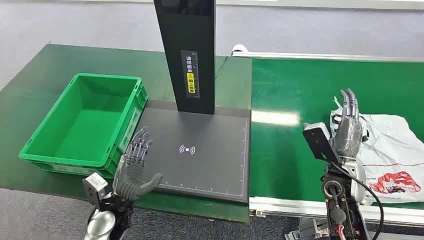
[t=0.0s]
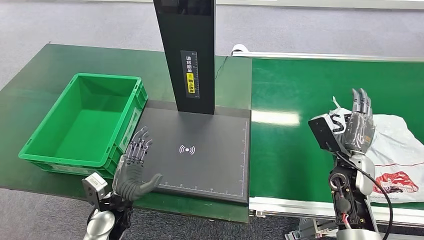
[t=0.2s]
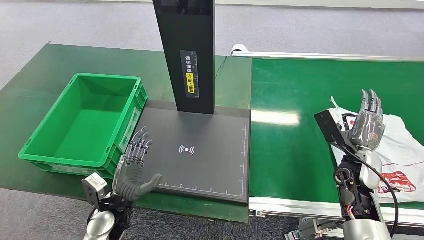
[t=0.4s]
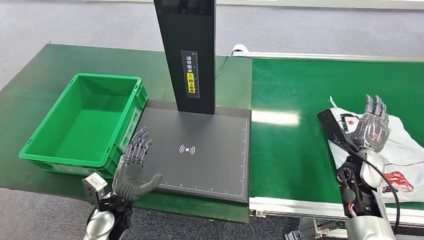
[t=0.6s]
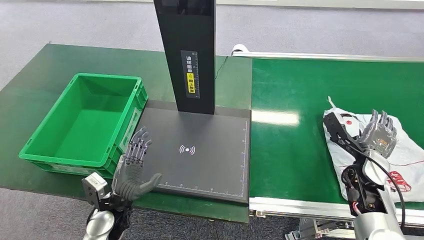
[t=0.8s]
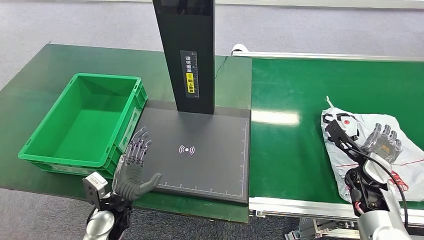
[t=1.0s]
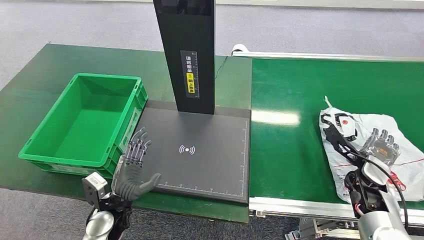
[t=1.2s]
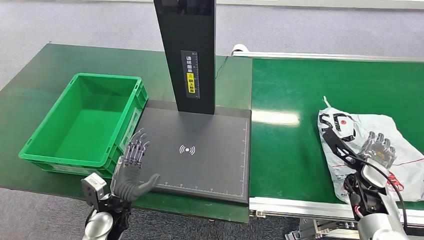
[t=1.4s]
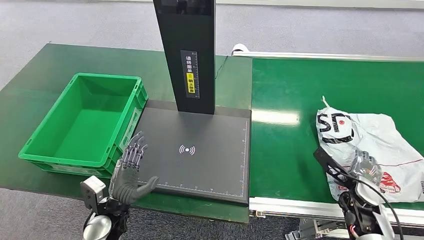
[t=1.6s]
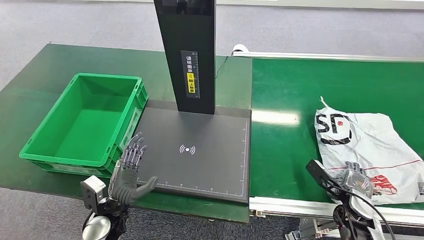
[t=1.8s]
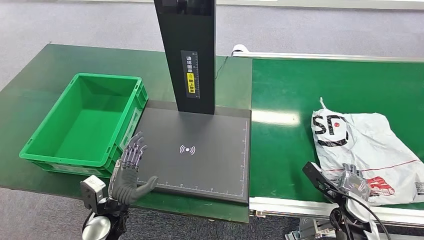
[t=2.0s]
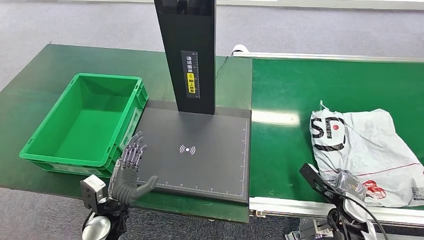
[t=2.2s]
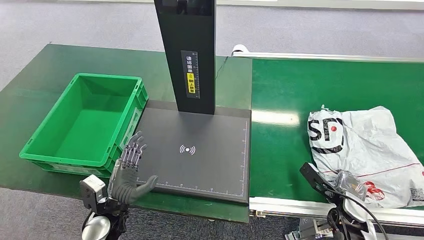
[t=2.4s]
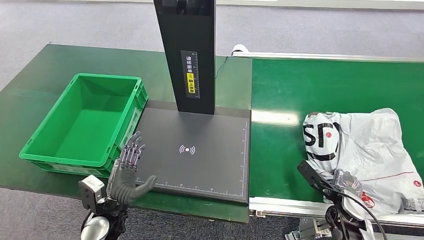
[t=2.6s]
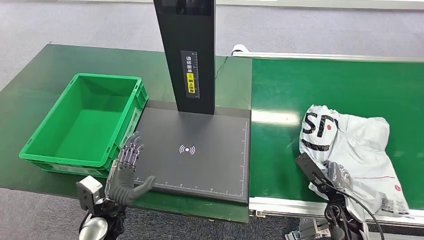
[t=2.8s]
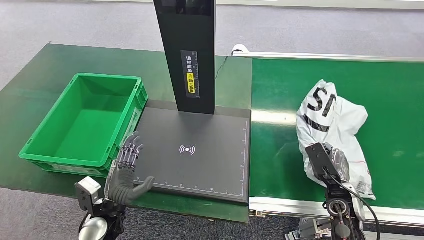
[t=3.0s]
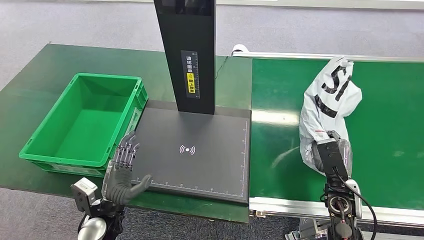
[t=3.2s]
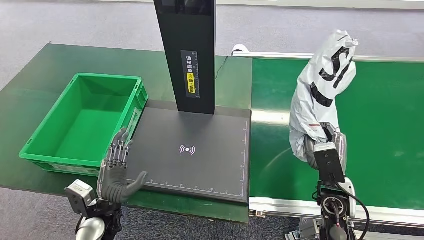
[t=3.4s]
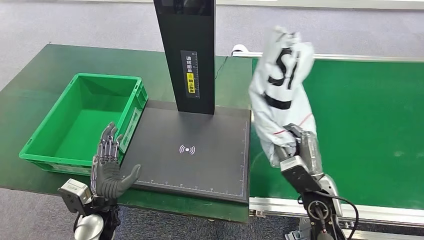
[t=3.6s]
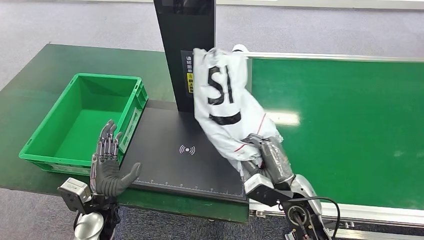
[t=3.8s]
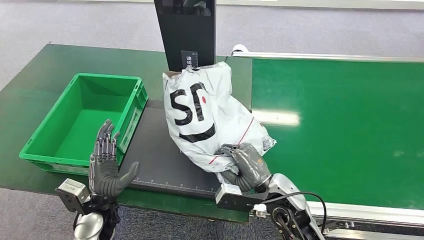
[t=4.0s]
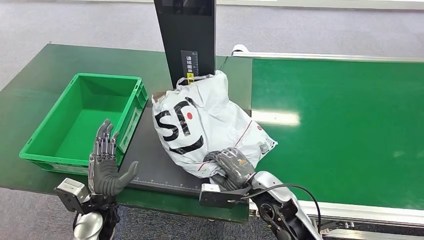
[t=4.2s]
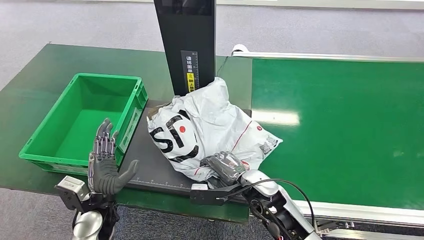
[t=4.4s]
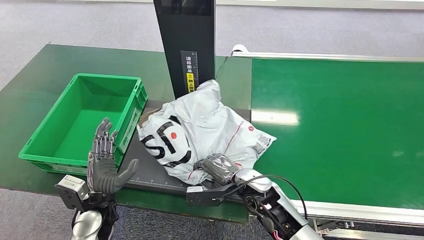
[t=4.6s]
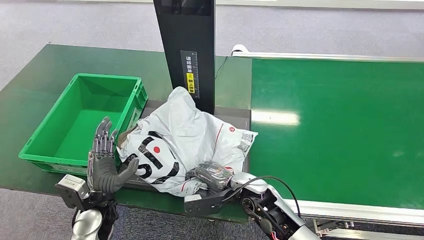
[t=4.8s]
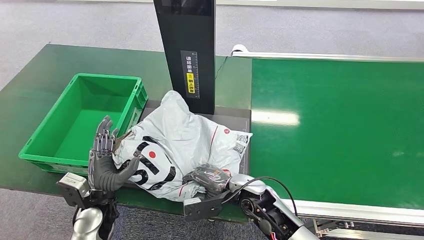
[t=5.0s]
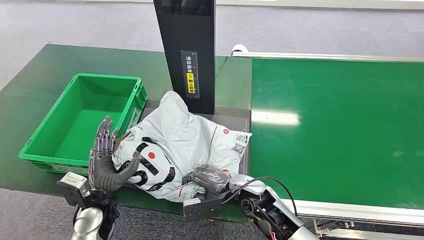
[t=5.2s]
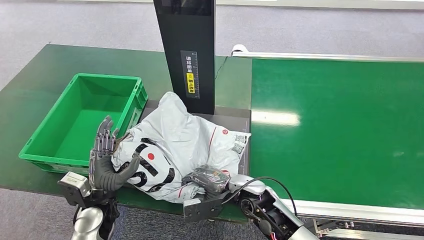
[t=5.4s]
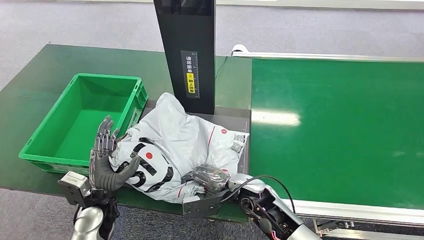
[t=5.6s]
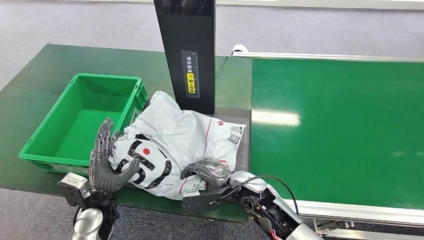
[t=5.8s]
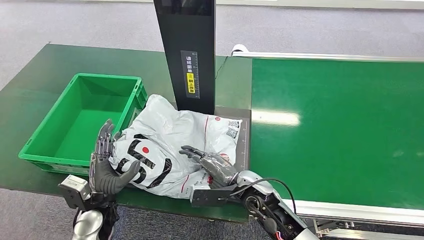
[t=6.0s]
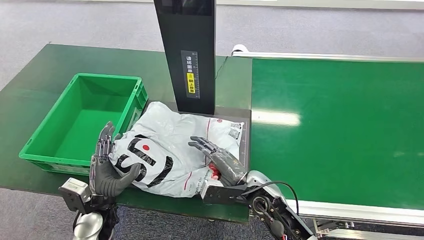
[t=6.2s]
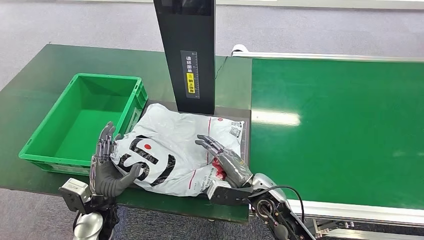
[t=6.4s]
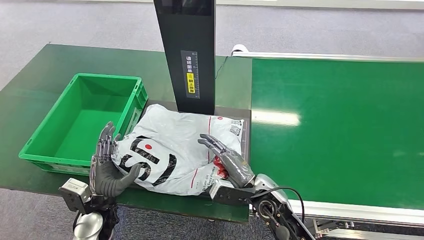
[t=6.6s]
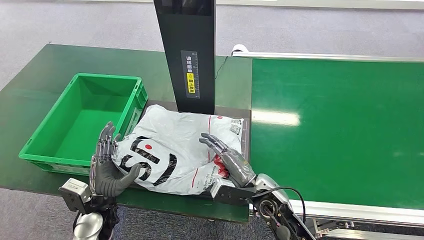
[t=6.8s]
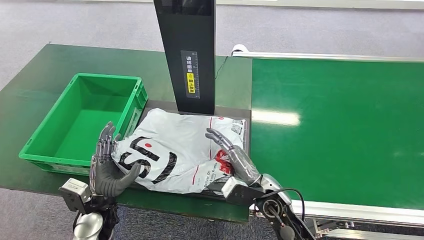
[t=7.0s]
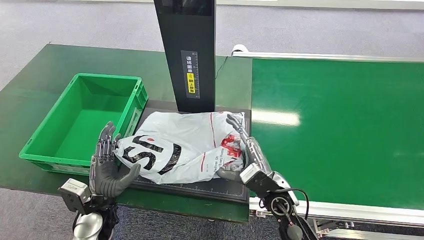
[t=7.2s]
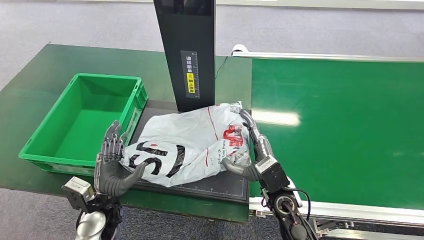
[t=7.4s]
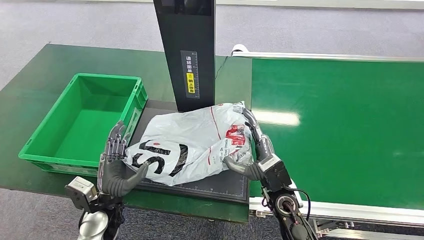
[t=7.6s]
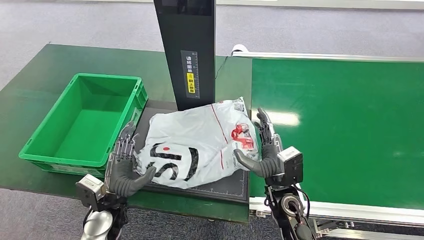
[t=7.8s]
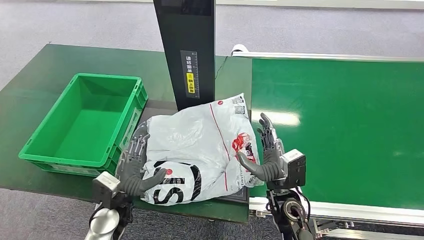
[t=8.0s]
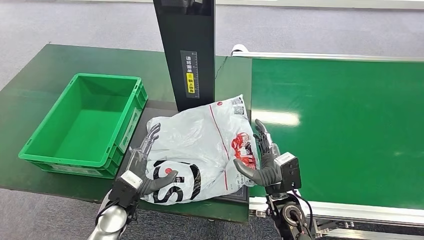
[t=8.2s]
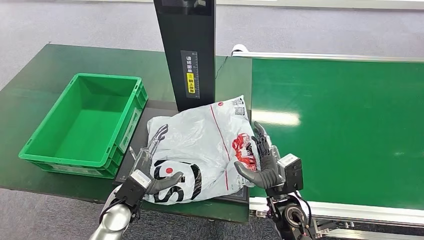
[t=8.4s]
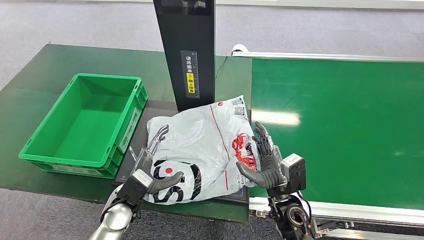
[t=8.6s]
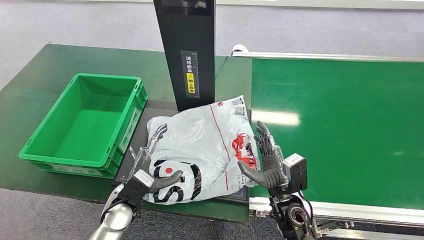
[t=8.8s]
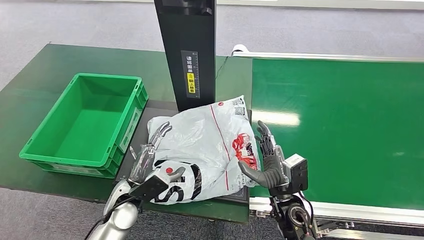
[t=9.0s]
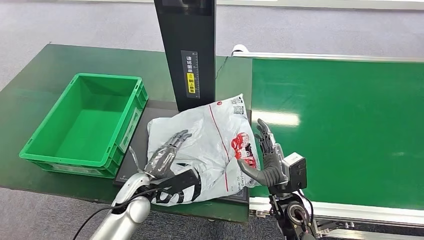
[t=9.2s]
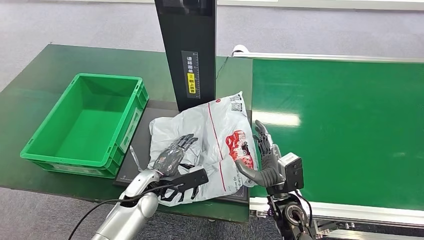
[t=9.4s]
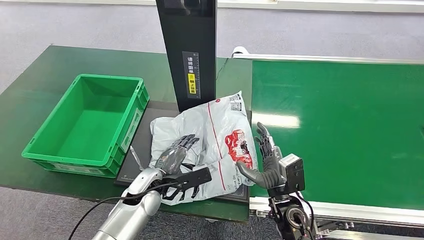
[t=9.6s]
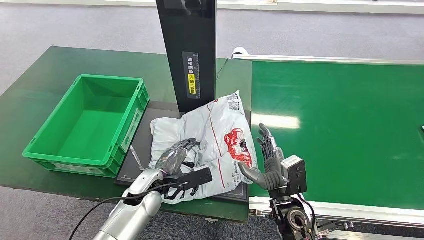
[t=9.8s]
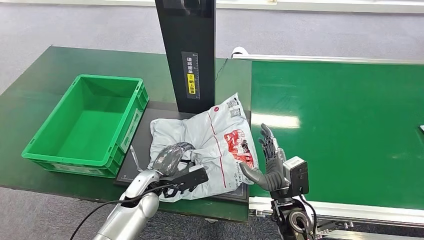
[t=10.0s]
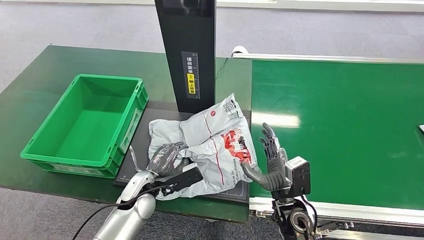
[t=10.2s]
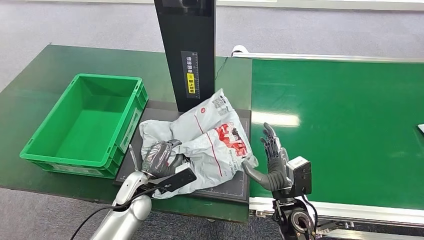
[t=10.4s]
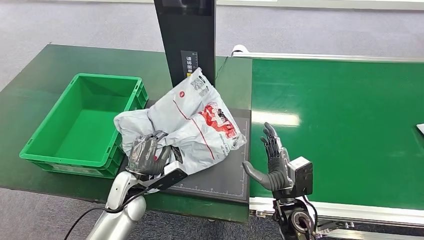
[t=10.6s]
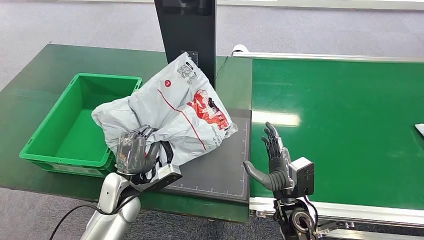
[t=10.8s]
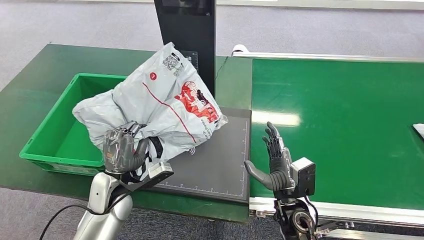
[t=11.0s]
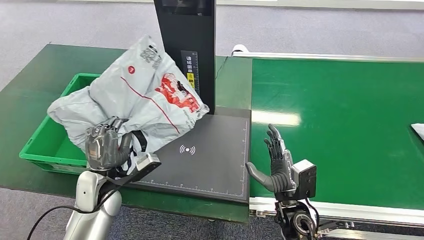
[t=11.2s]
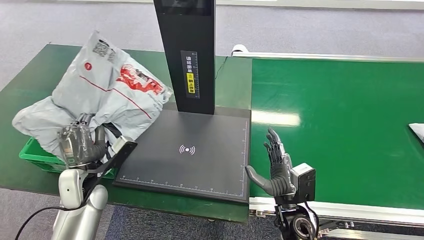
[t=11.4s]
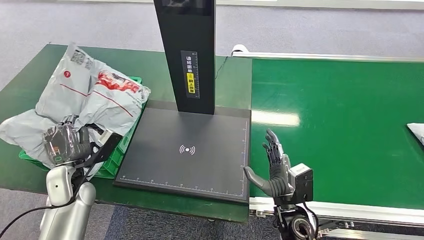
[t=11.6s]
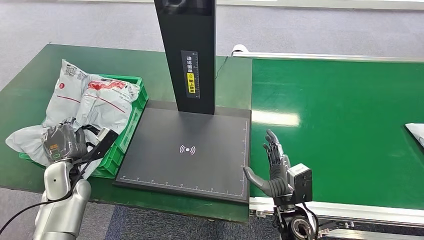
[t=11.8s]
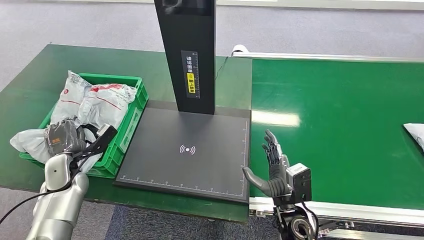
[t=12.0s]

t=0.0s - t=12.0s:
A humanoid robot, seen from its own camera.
Step, t=0.0s - t=3.4s: Pick up the package from the conveyor belt.
Step, t=3.6s - t=8.8s: Place the package onto the inbound machine.
Step, t=9.0s - t=11.0s: Pick up the package from the inbound machine.
t=1.6s - t=3.0s: The right hand shifts some 5 cm to the left.

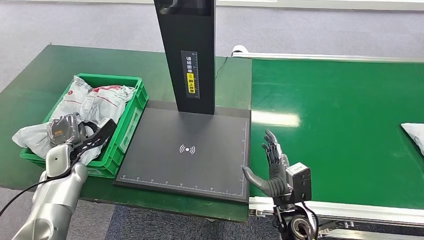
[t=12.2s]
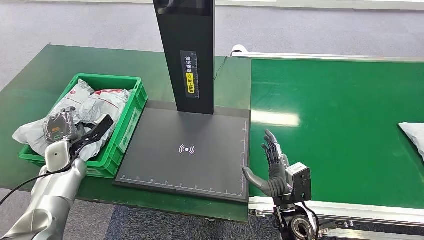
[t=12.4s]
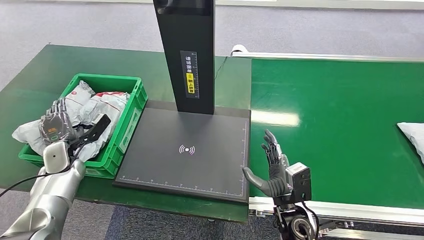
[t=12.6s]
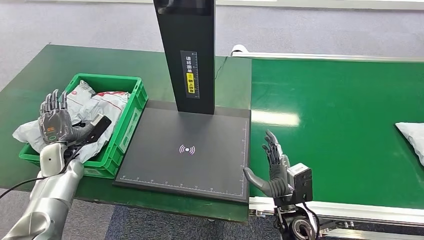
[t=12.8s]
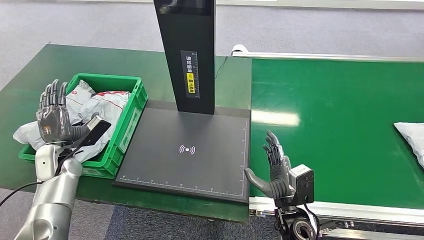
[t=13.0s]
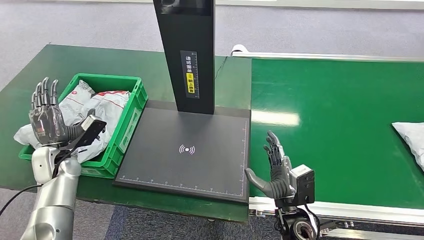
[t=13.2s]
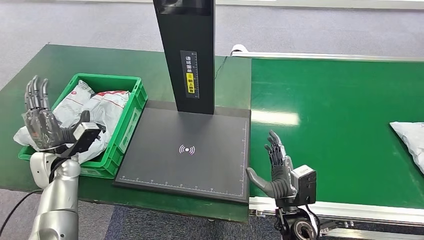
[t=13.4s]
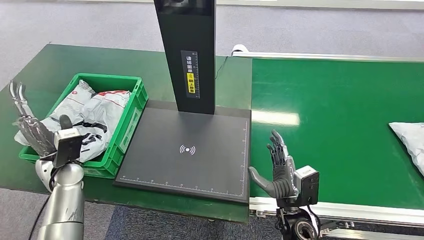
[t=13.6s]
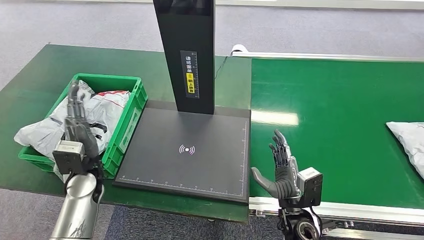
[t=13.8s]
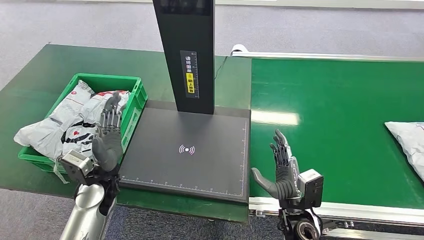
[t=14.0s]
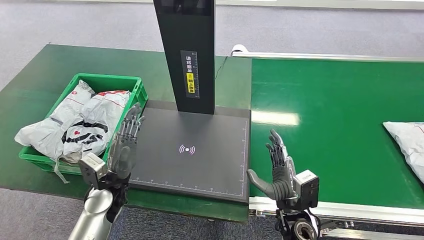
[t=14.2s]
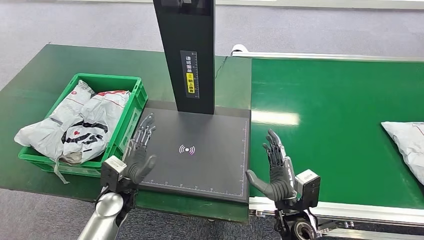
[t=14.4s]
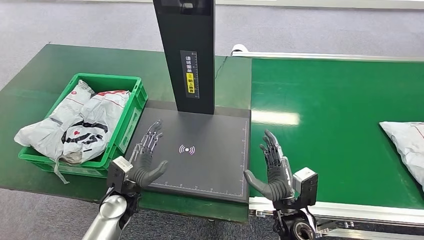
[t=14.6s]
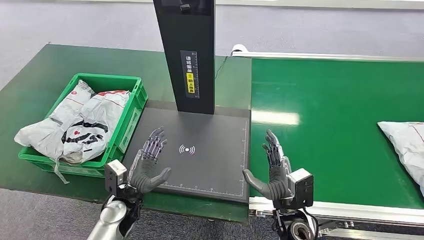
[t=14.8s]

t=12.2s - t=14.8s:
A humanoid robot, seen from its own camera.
Step, t=12.2s - t=14.6s: Place the package into the parcel locker.
t=13.4s - t=14.8s: The left hand shifts roughly 20 cm to the right, backward and downward.
